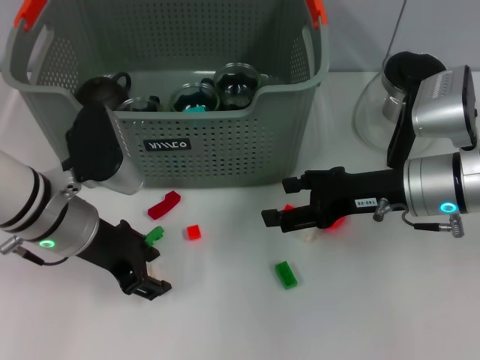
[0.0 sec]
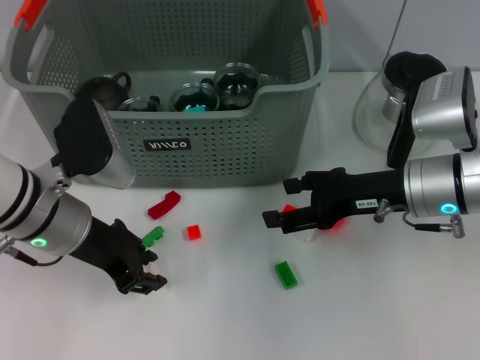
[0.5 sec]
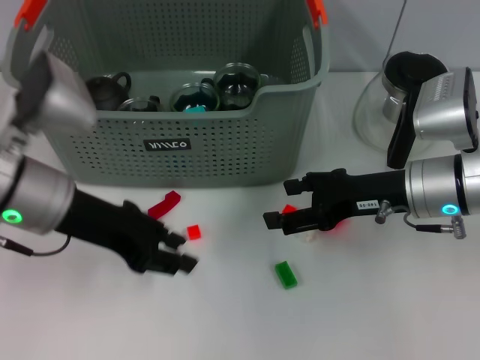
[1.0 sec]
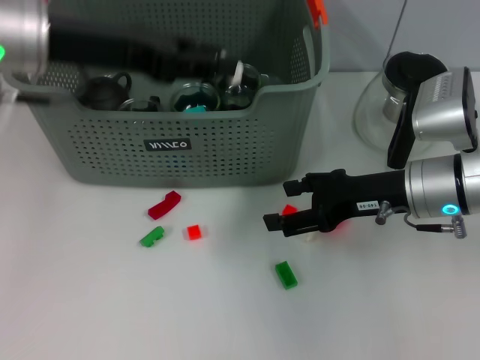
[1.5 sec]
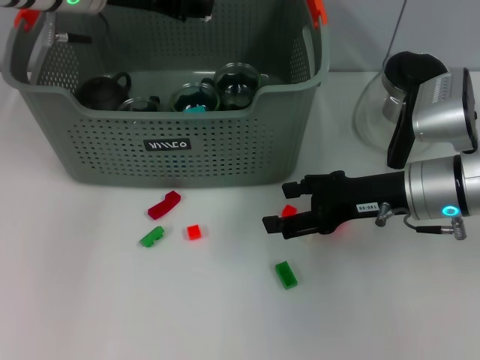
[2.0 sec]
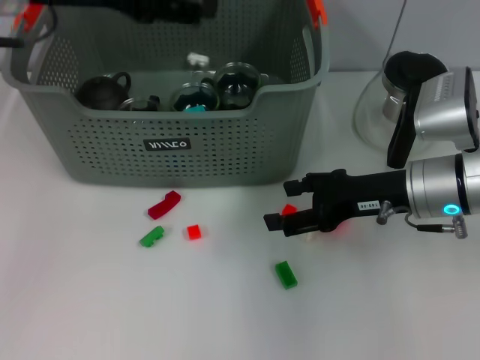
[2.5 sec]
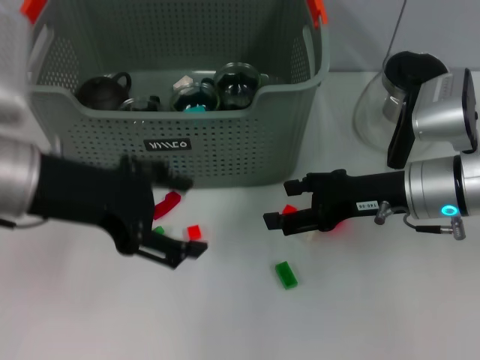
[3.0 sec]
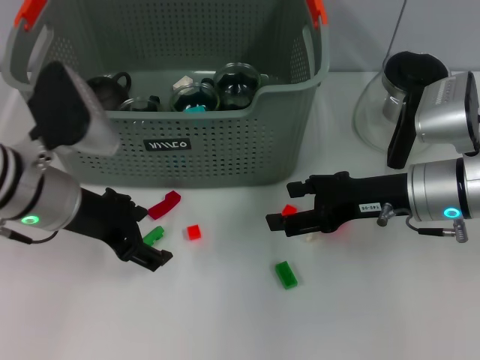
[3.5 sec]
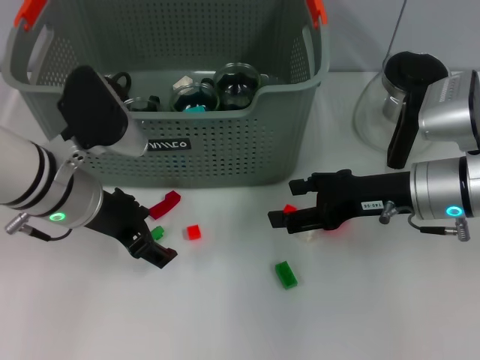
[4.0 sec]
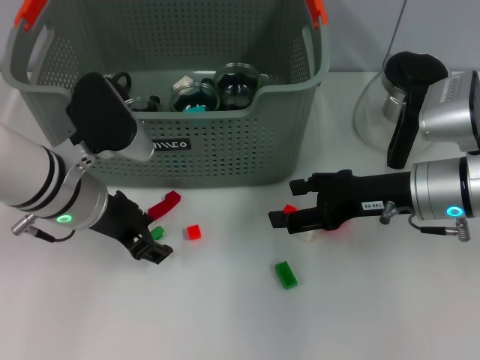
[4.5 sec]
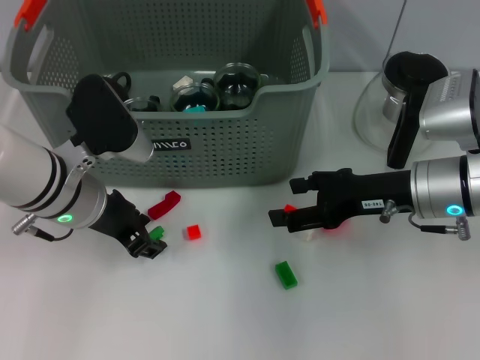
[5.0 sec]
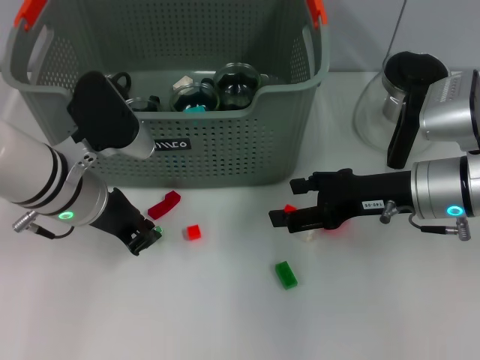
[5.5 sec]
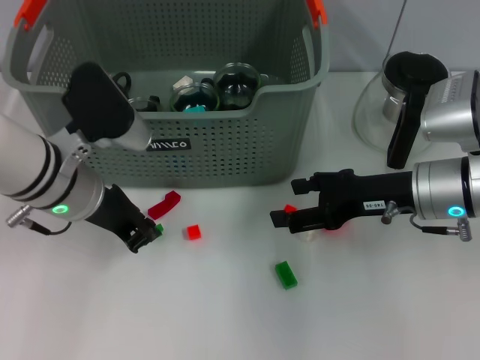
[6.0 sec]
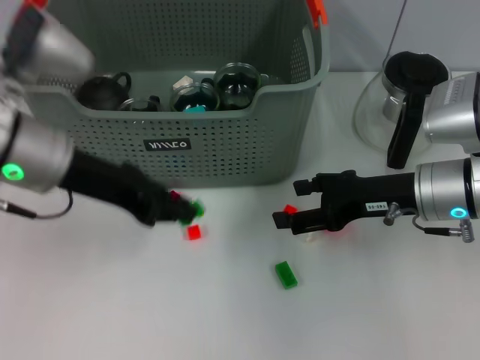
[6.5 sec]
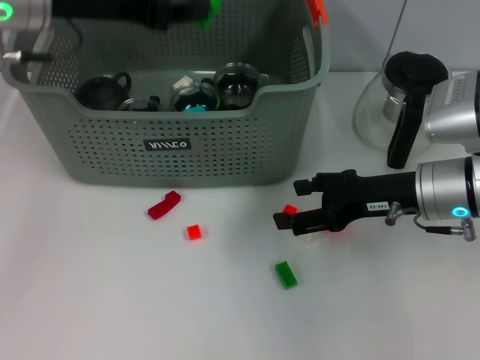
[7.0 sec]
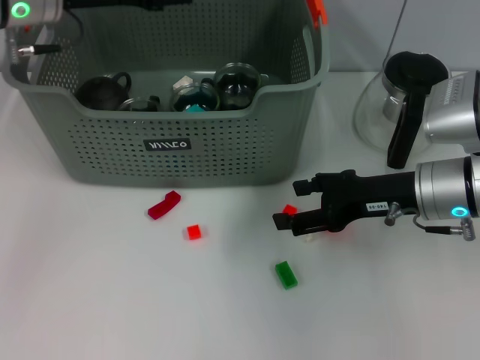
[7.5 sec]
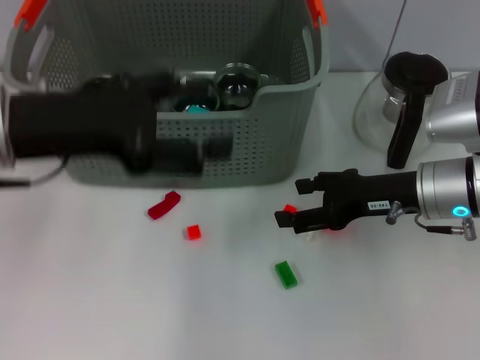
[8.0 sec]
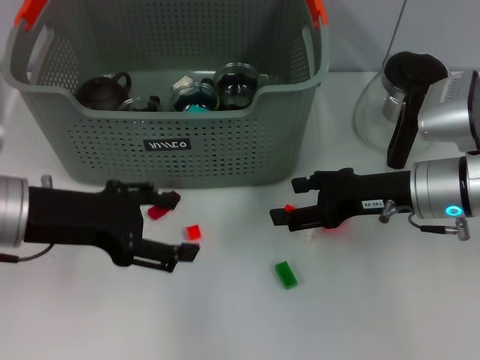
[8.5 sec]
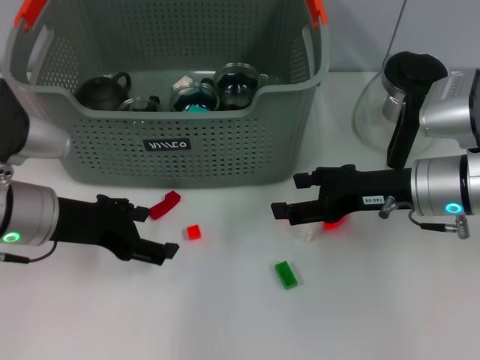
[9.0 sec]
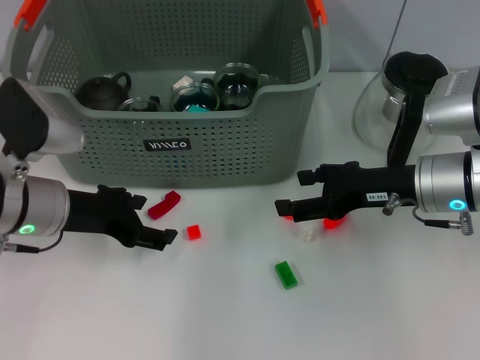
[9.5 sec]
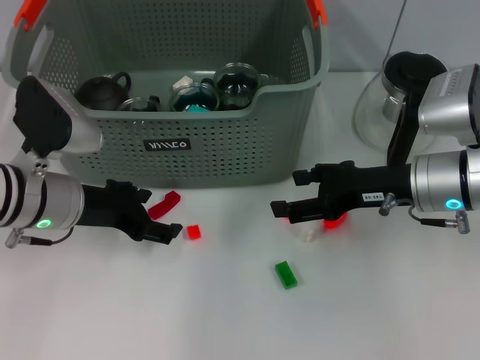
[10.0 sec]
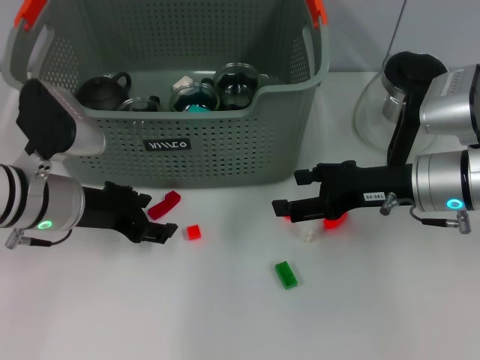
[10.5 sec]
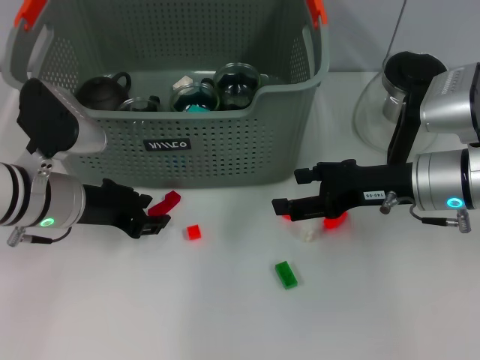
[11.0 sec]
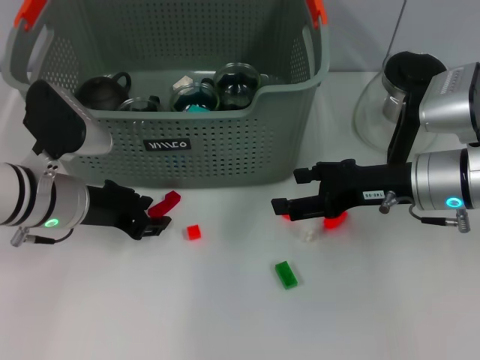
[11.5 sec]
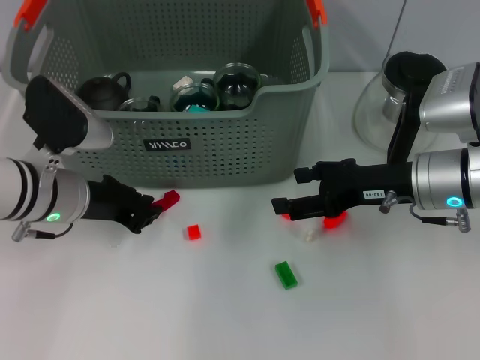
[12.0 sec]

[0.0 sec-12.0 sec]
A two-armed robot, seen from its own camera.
Task of the whole recording: pick up the teacup on the table and place it into the storage bin, pick up the block on the table and place it into the storage bin.
Step, 0.5 sec to 2.0 sec: Place the white block in the storage box with left gripper.
Step, 2.5 sec to 7.5 sec: Grasp the green block with left gripper.
0.0 sec to 2.0 sec: The left gripper shifts about 20 cm upward and forward.
2.0 sec to 4.0 sec: The left gripper travels downward and backward by about 15 cm, and opens.
4.0 sec to 6.0 sec: The left gripper closes its fingers.
6.0 sec to 8.0 sec: The left gripper goes some 10 cm upward, and opens up.
8.0 sec to 10.0 sec: The left gripper heads downward, covering roughly 10 cm.
10.0 sec to 12.0 sec: The left gripper closes its fingers.

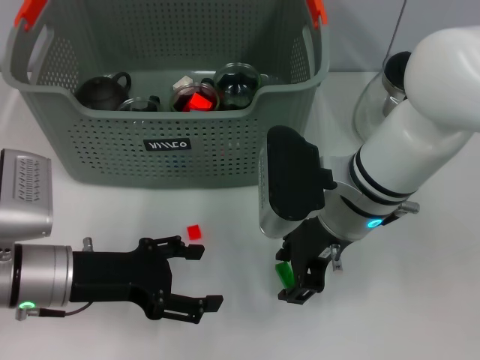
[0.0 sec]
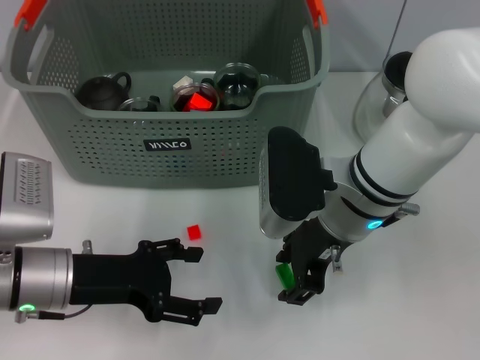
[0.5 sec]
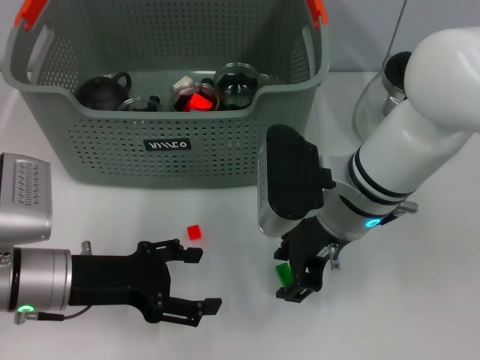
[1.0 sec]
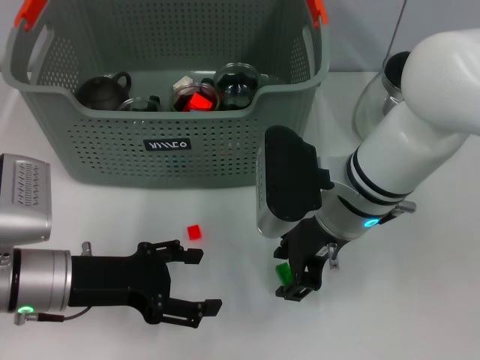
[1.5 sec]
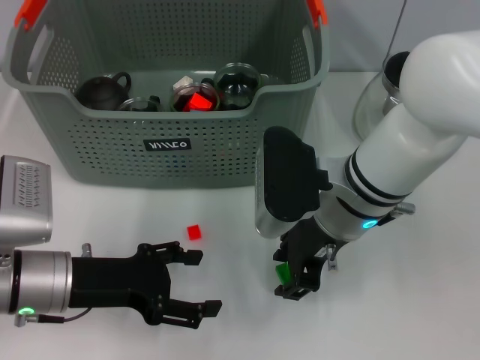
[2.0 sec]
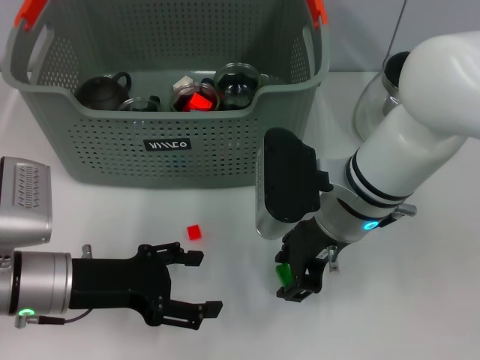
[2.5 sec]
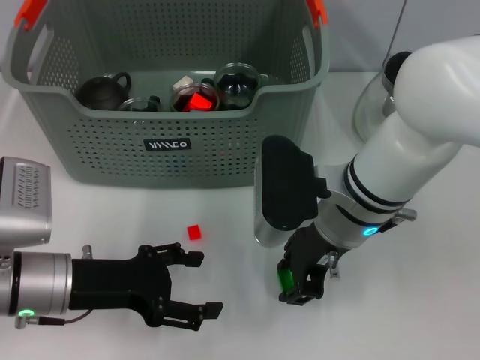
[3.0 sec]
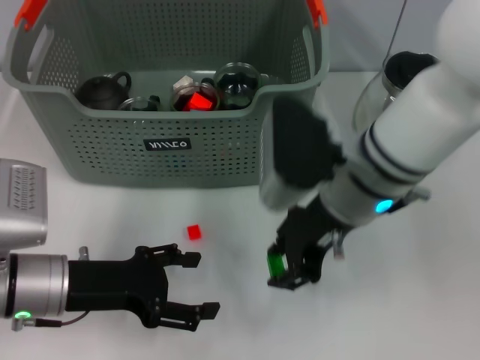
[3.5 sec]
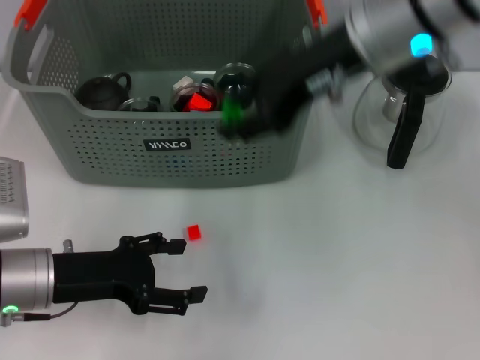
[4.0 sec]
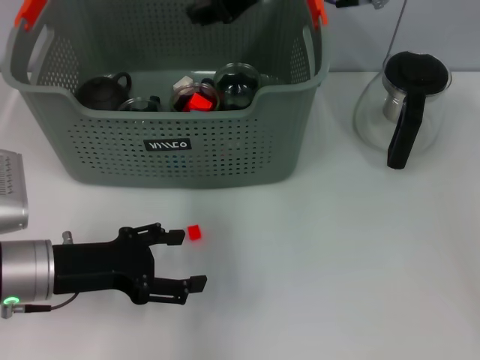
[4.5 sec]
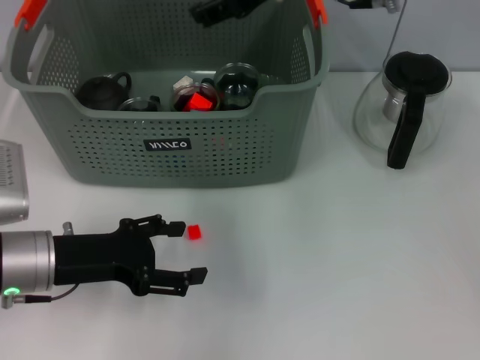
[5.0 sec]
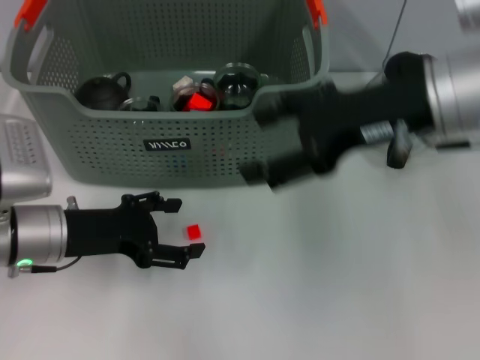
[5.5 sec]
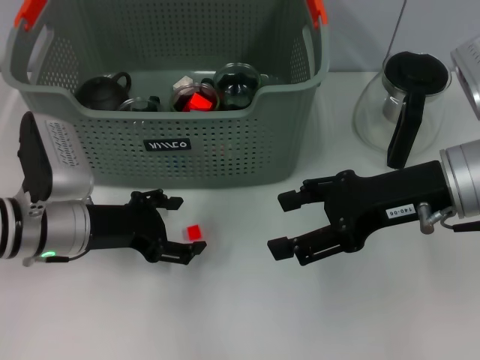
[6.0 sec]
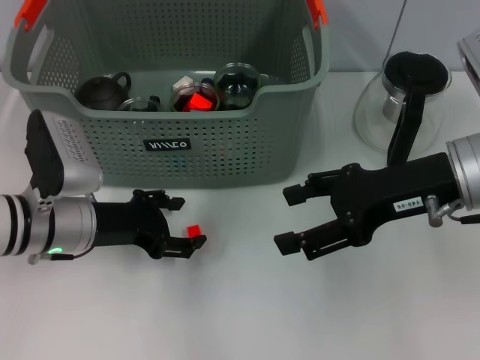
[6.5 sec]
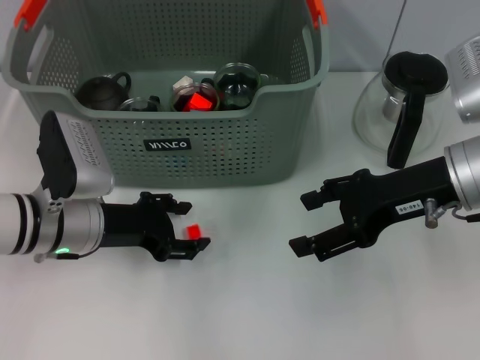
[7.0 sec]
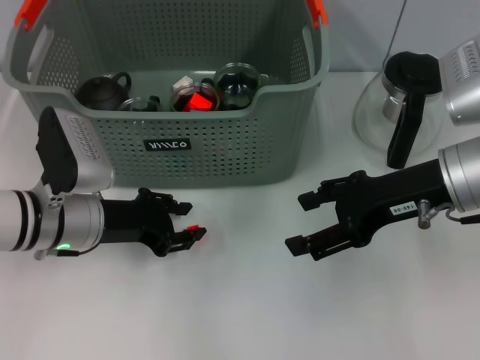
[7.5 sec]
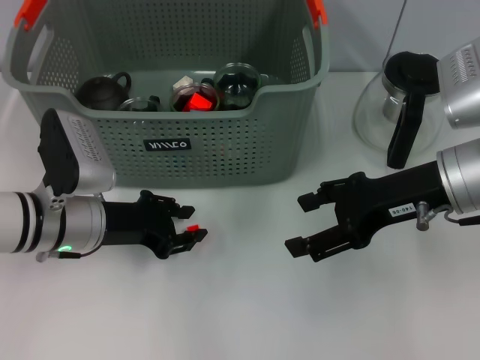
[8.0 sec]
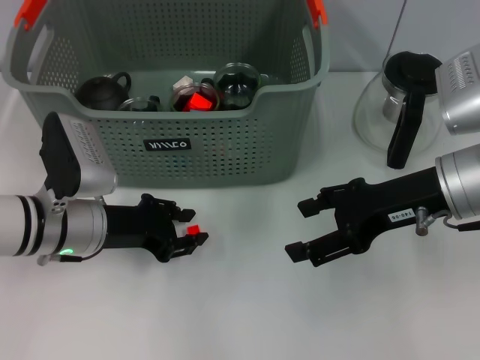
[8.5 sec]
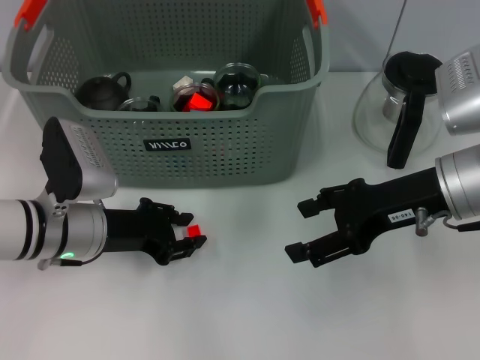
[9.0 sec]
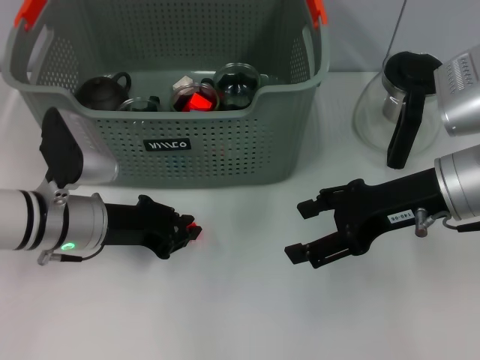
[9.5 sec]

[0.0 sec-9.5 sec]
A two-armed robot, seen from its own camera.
Task of the whole recording: pick up the teacup on the table and place it into the storage bin, pick up the block on the table and place it into the storage bin.
Step, 0.0 sec to 3.0 sec: Grasp the green block with right gripper.
Step, 3.5 sec to 4.5 sec: Place the green block in the storage box with right gripper.
0.0 sec to 2.0 sec: Neither gripper changes place.
2.0 sec to 4.0 sec: The right gripper shifts roughly 15 cm upward.
4.0 sec to 5.5 sec: The right gripper travels to the right by approximately 5 cm, and opens.
5.5 sec to 7.5 sec: The left gripper closes its fingers. Meanwhile the right gripper shifts approximately 10 cm downward.
7.5 sec to 9.5 sec: There are only small adjustments of the grippers.

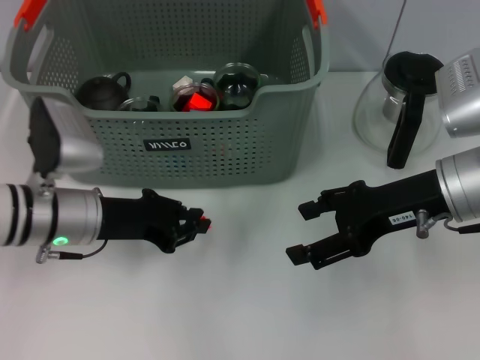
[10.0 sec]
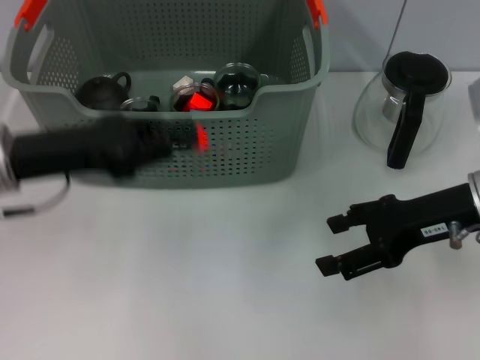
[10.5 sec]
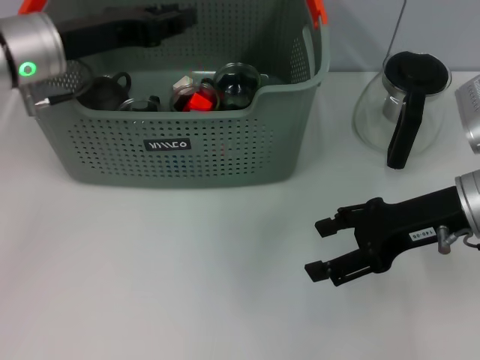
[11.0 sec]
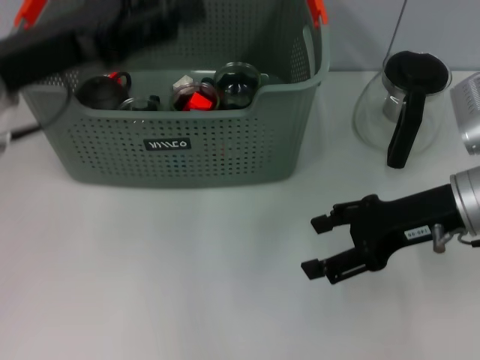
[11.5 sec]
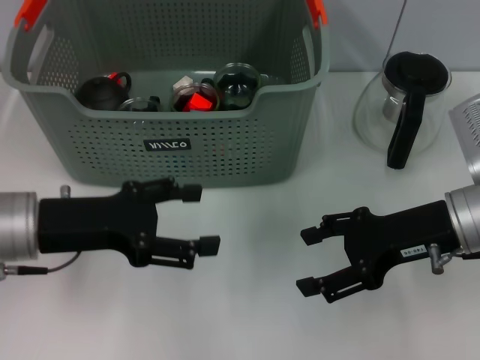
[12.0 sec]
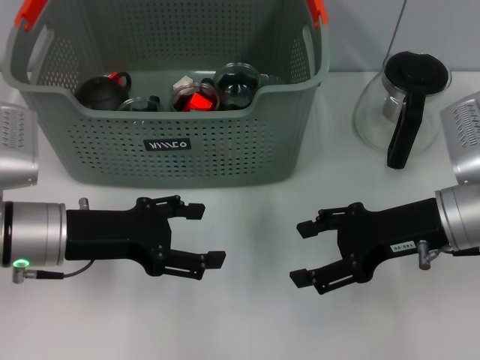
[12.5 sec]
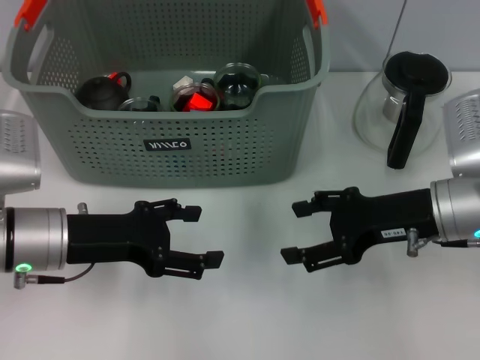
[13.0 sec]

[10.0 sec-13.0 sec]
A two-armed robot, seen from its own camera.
Task of the whole recording: pick up the teacup on the table and place it into the storage bin, pick up the block on the table and place it into the storage bin.
Step, 10.0 sec to 11.0 sec: Place the orange block in the storage box with left gripper.
10.0 sec to 11.5 sec: The left gripper is displaced upward by approximately 15 cm, and opens its fingers.
11.5 sec to 13.0 sec: The left gripper heads downward, covering roughly 10 cm, and opens its fingers.
